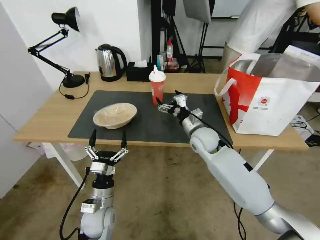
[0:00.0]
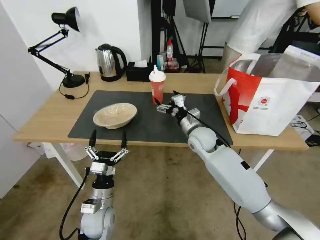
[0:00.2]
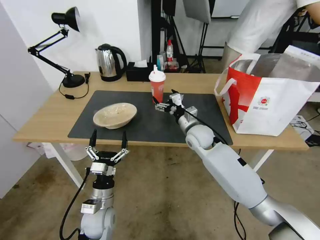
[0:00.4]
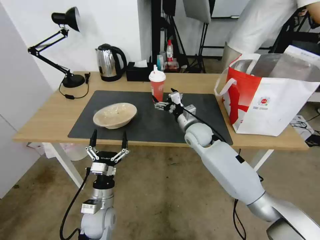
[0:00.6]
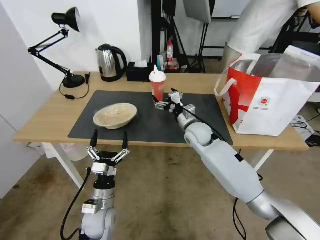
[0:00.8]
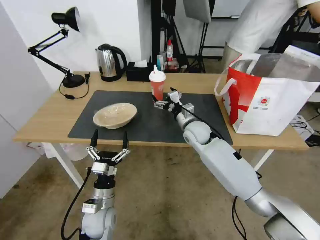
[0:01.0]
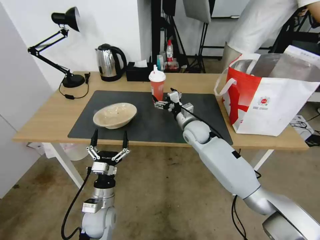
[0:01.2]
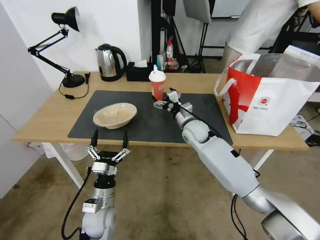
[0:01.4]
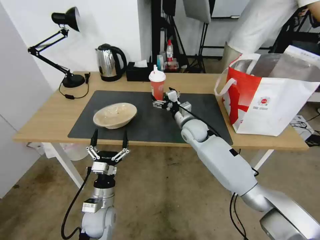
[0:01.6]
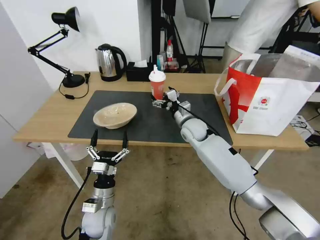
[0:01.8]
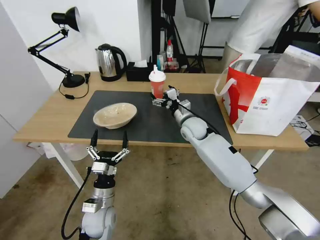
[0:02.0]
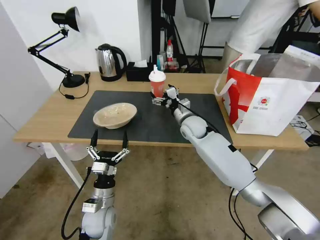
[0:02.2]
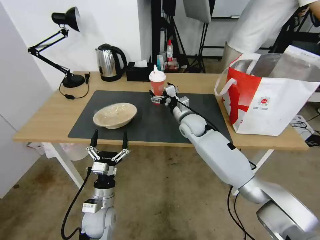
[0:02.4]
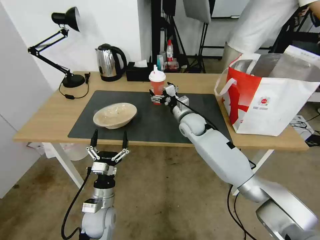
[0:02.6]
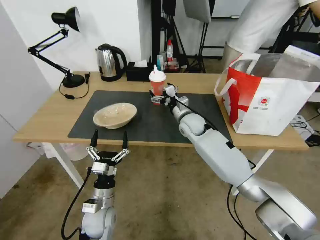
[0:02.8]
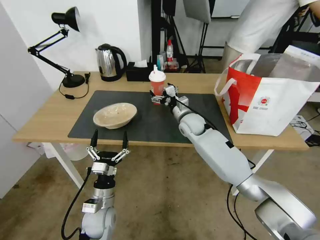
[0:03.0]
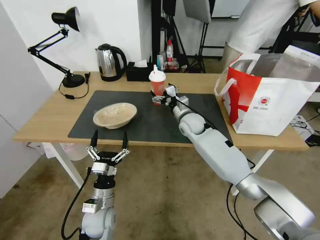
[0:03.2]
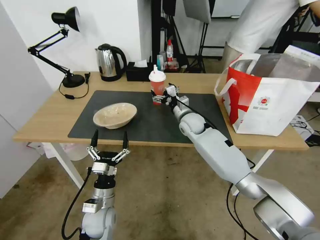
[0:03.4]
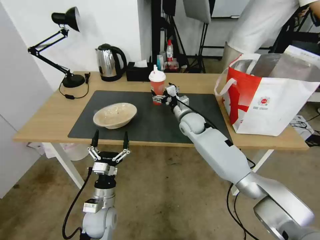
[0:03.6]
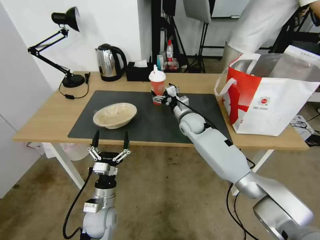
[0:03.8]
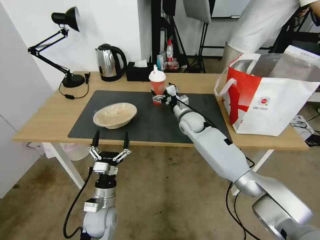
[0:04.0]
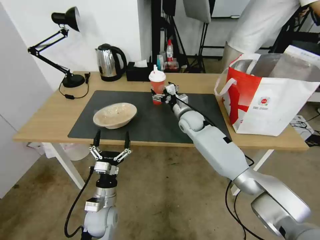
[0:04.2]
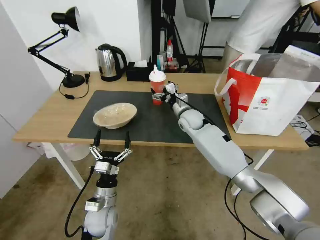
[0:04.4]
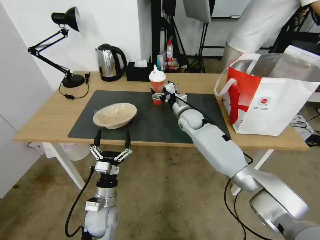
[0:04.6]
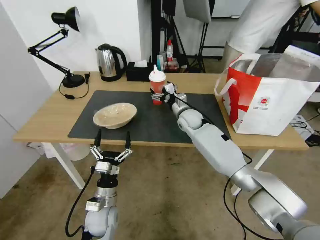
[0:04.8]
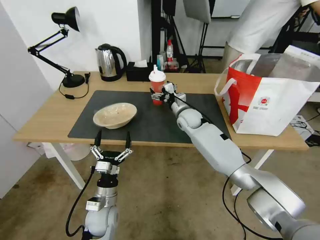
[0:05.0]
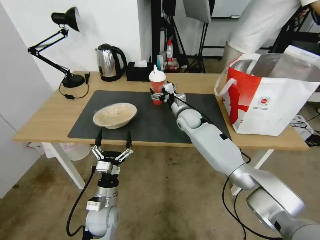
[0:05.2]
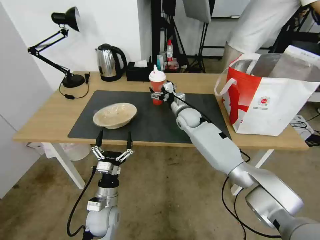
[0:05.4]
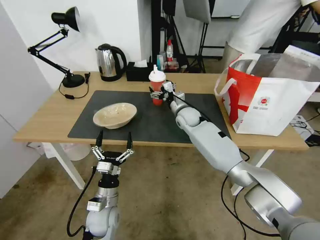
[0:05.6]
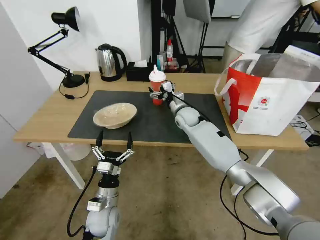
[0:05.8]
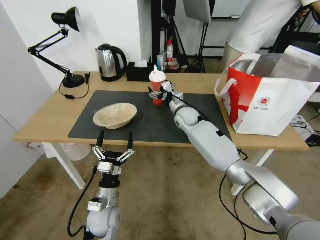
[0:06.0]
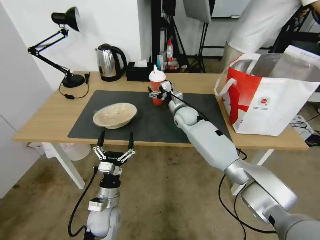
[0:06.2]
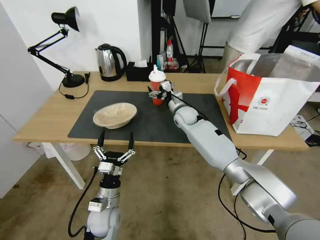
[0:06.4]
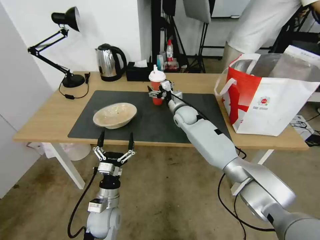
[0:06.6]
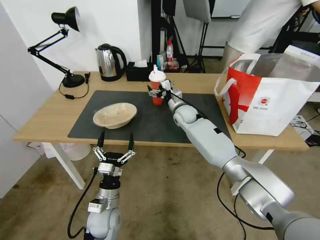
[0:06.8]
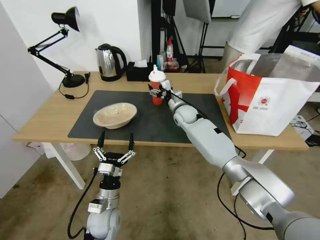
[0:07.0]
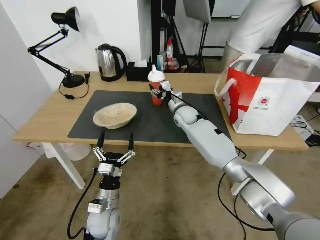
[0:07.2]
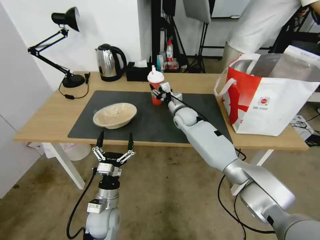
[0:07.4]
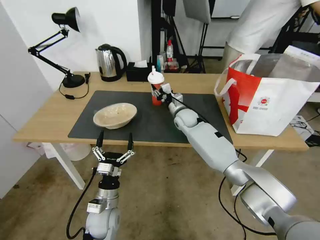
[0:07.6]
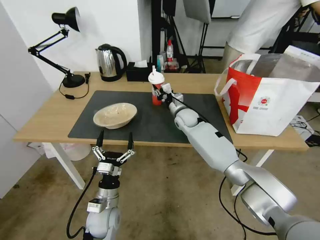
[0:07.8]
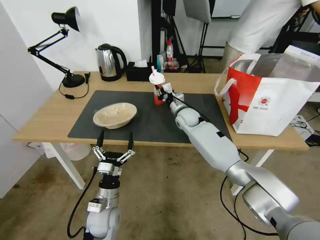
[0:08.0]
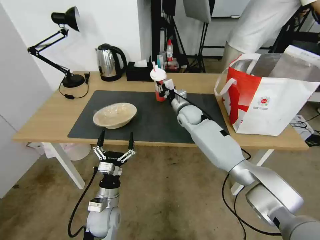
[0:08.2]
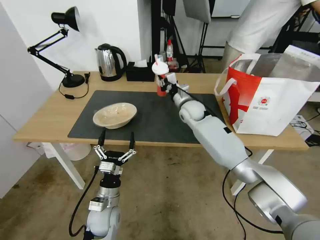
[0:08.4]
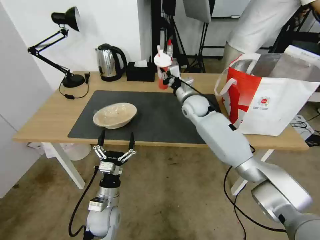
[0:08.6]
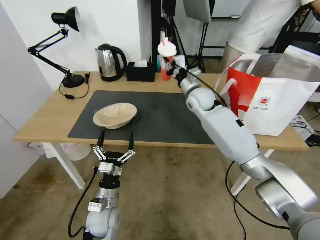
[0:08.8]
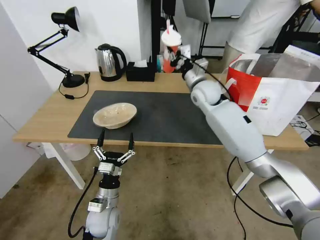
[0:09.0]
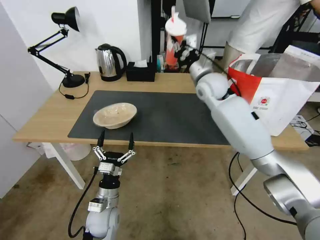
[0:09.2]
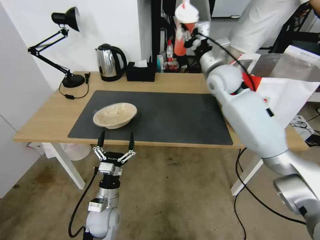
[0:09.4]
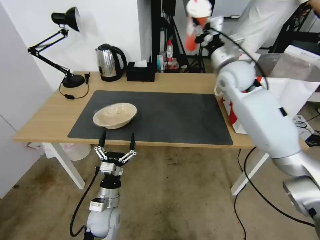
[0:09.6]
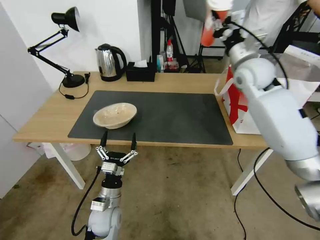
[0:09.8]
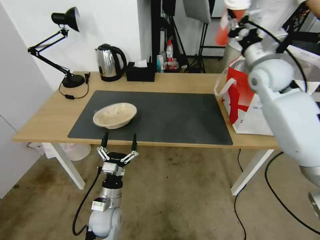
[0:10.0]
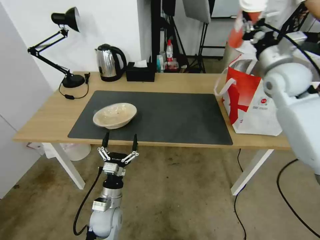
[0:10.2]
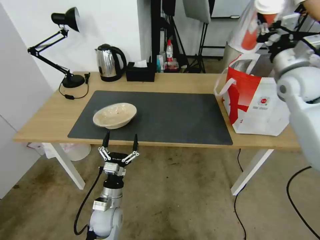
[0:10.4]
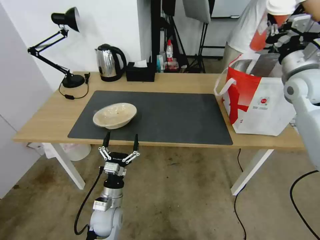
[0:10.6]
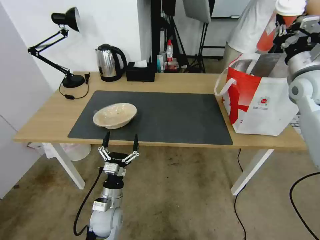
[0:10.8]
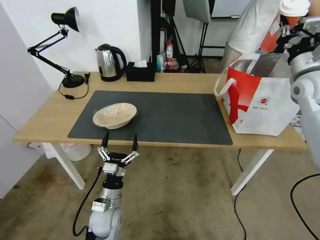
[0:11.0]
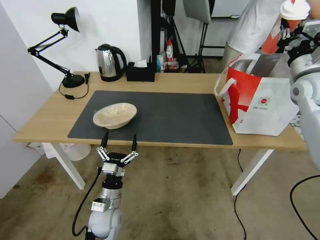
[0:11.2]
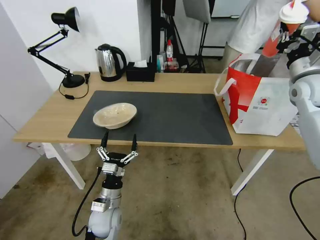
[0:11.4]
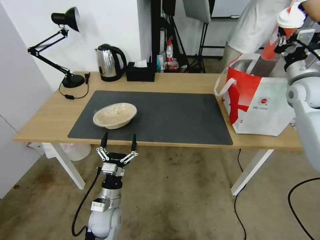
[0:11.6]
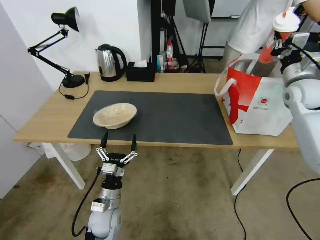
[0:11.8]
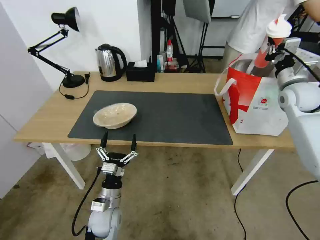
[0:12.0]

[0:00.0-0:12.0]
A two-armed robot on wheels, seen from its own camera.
Task of the whole recording: Pick up the trash from the table and place it into the takeout bag.
0:00.0 to 0:01.6: The right gripper goes about 5 cm forward.
0:01.6 to 0:04.4: The grippers stay close to where they were, moving slightly.
0:04.4 to 0:06.0: The grippers stay close to where they were, moving slightly.
0:06.0 to 0:07.6: The right gripper closes up.
0:07.6 to 0:09.0: The right gripper is displaced upward by roughly 15 cm.
0:09.0 to 0:10.4: The right gripper heads to the right and upward, covering approximately 25 cm.
0:10.4 to 0:12.0: The right gripper is displaced downward and to the right by some 10 cm.

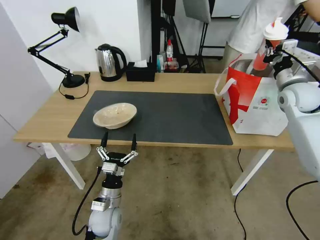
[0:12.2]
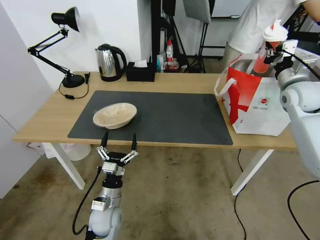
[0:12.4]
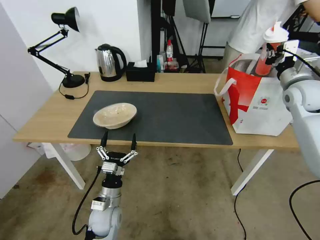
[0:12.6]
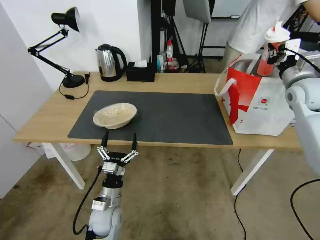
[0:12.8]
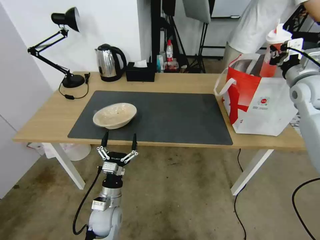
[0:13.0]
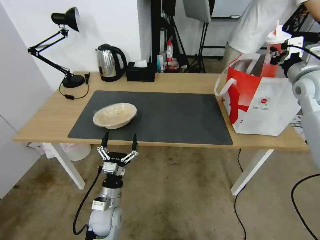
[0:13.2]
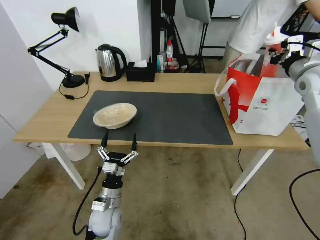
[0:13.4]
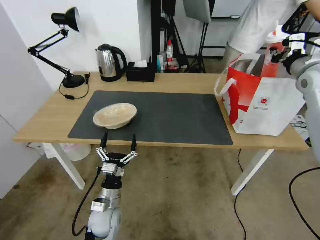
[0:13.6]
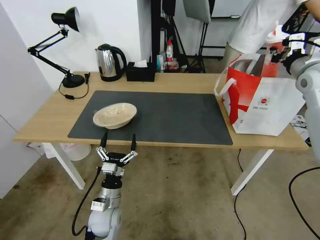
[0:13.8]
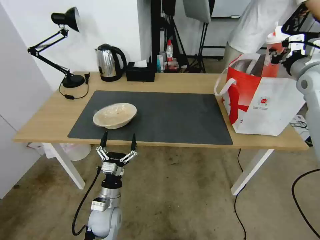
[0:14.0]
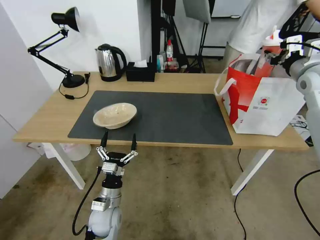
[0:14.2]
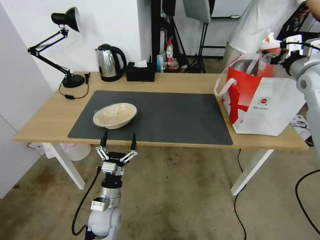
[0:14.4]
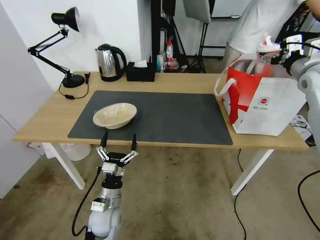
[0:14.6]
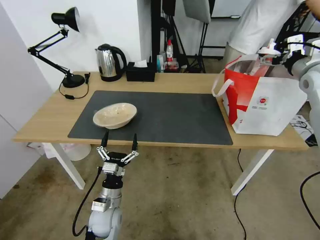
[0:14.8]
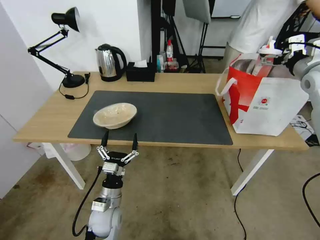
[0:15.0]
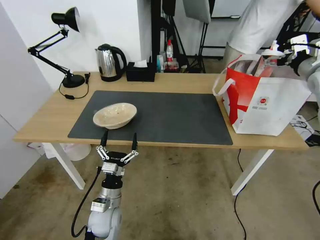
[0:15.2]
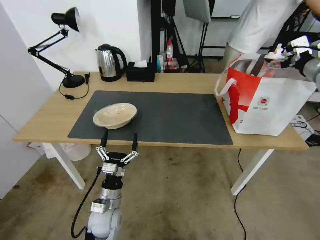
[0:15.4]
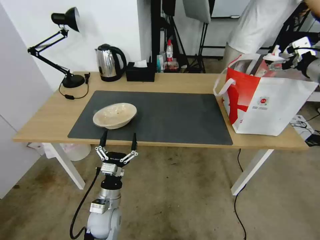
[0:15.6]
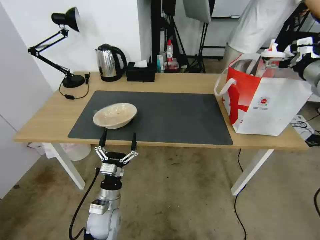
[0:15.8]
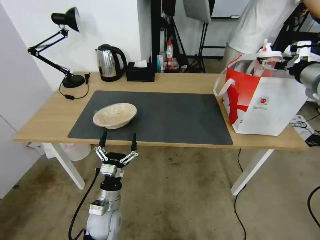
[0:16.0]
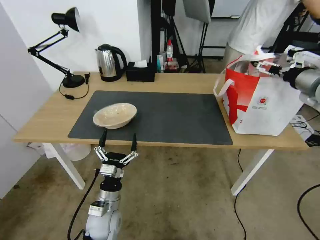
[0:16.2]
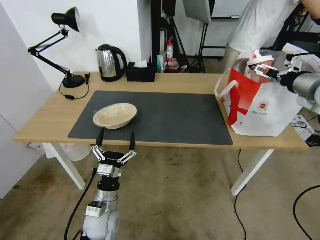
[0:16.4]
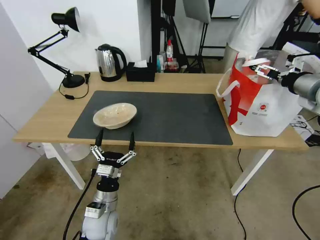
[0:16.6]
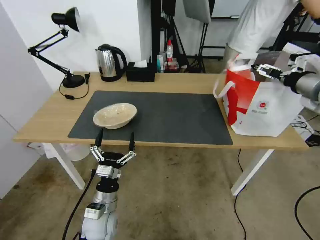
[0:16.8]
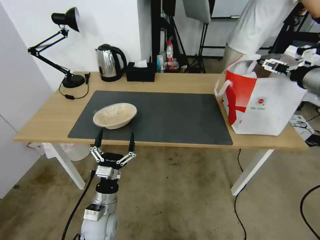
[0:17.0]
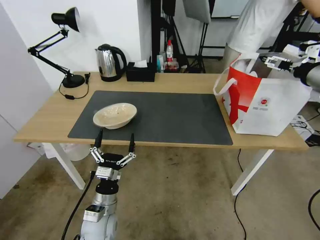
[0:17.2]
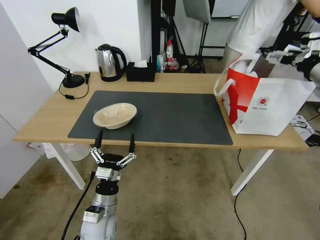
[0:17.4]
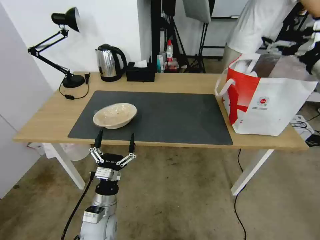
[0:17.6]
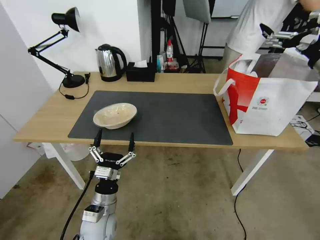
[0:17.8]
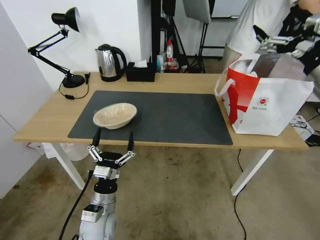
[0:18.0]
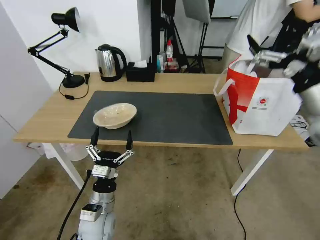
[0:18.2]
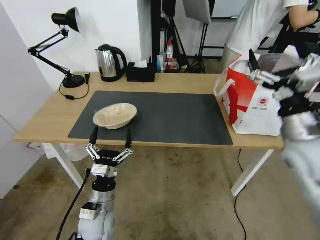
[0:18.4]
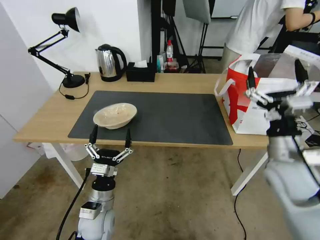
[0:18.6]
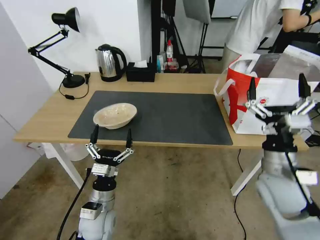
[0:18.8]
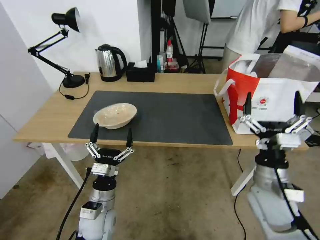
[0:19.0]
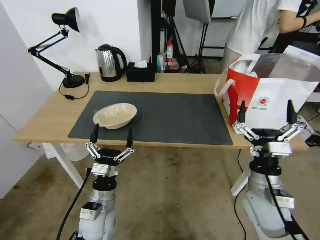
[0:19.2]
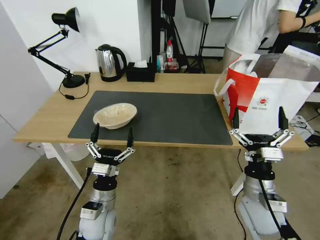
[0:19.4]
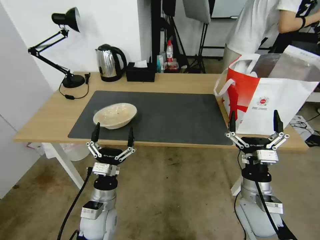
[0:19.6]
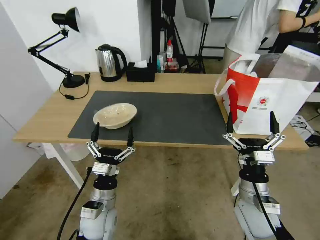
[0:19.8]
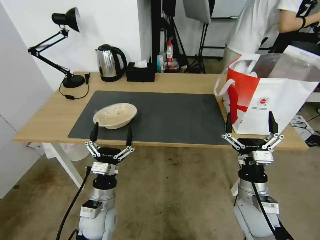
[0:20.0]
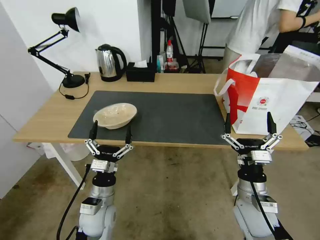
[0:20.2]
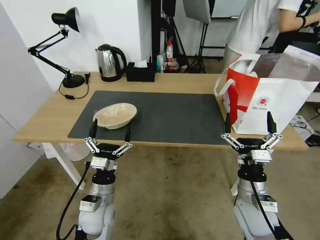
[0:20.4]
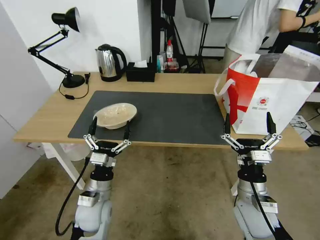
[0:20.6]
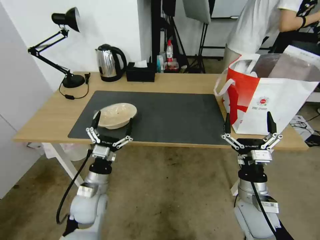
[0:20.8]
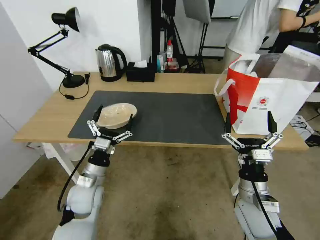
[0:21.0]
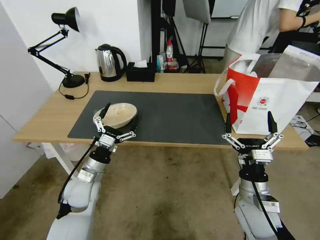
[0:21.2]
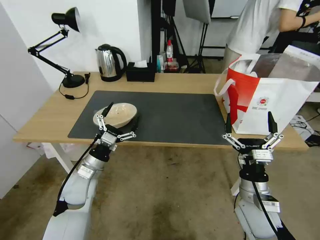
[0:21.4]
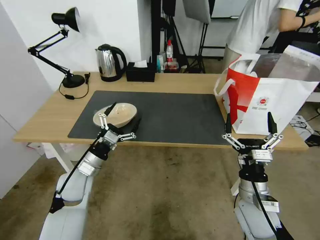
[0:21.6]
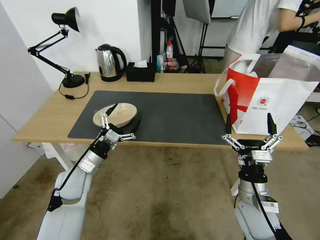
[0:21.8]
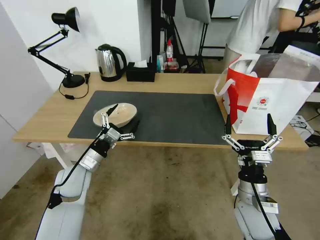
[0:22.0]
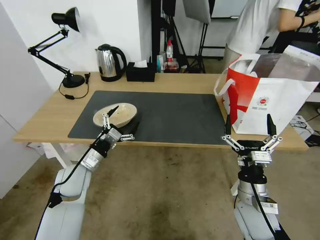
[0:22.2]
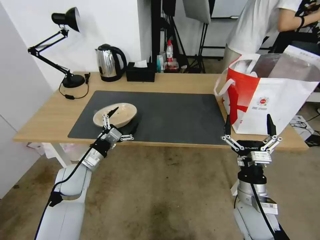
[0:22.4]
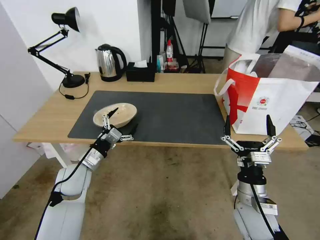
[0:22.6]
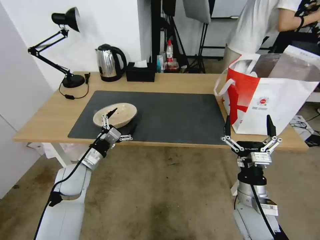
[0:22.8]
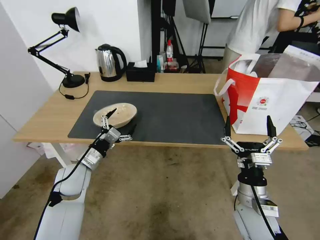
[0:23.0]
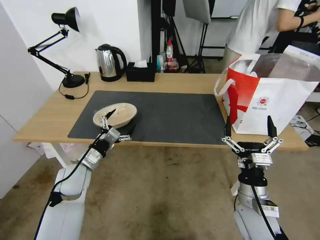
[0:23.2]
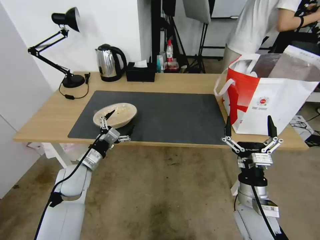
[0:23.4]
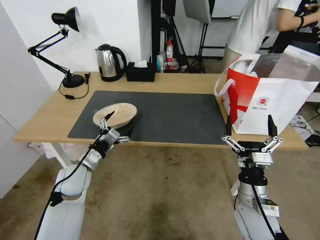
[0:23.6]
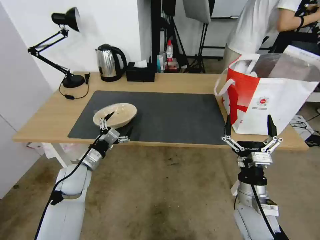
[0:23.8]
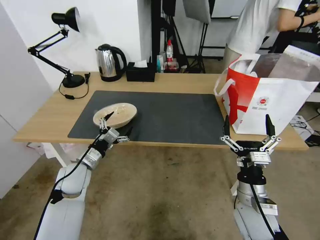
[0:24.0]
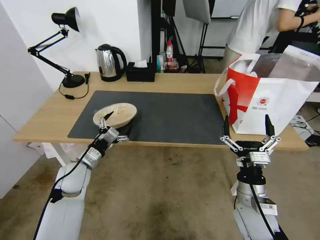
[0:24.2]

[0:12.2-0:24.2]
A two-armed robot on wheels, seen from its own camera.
Task of the whole recording: Pick up the trash from the table and place it into the takeout bag.
0:12.2 to 0:13.8: The right gripper travels upward by about 10 cm.
0:13.8 to 0:15.2: The right gripper opens up.
0:15.2 to 0:16.6: The right gripper travels backward by approximately 5 cm.
0:16.6 to 0:18.2: The right gripper shifts about 10 cm backward and to the left.
0:18.2 to 0:19.8: The right gripper moves downward, to the left and backward, some 30 cm.
0:19.8 to 0:21.2: The left gripper shifts some 10 cm forward and to the left.
0:22.6 to 0:24.2: The grippers make only small movements.
